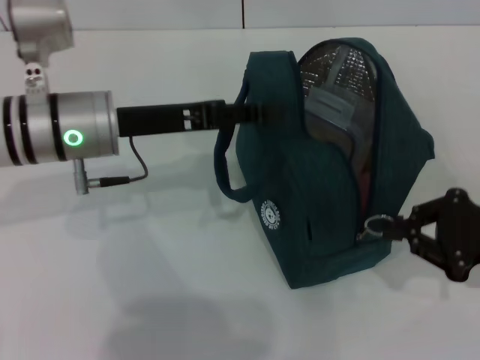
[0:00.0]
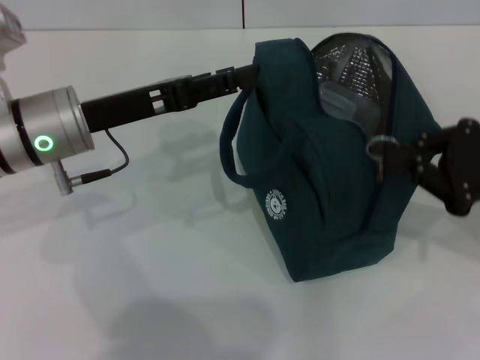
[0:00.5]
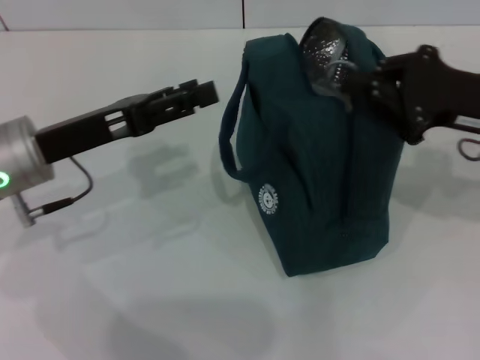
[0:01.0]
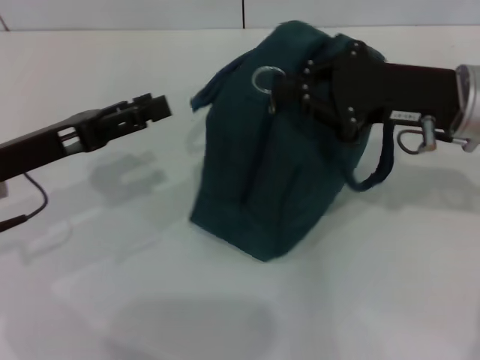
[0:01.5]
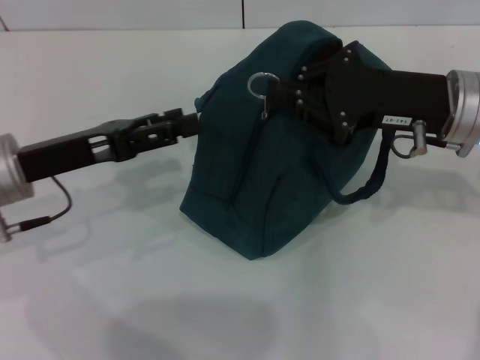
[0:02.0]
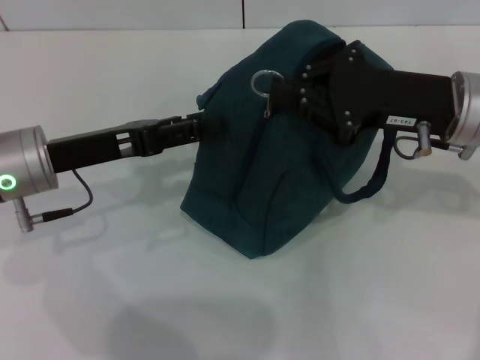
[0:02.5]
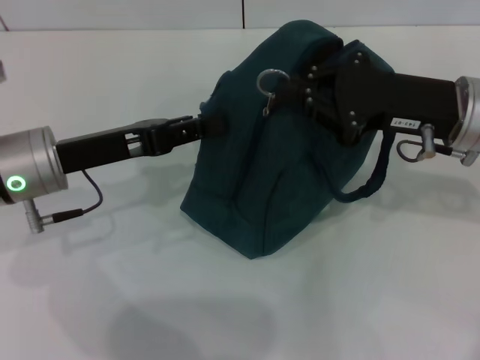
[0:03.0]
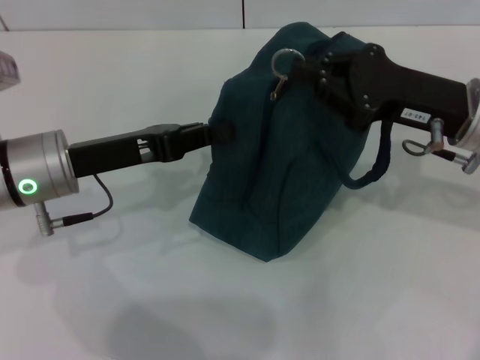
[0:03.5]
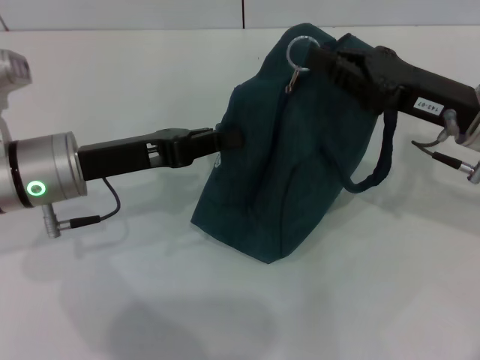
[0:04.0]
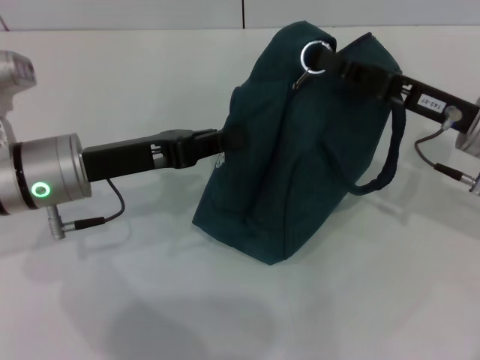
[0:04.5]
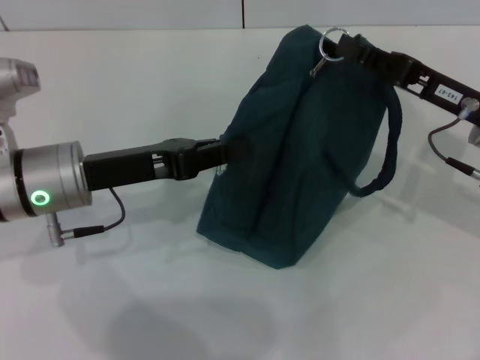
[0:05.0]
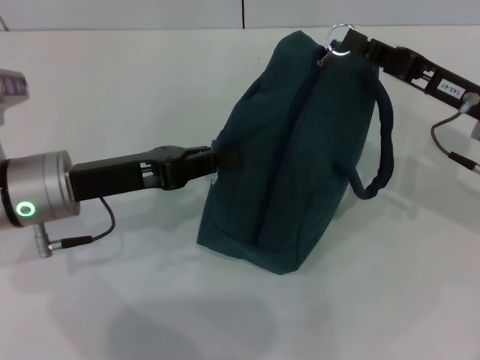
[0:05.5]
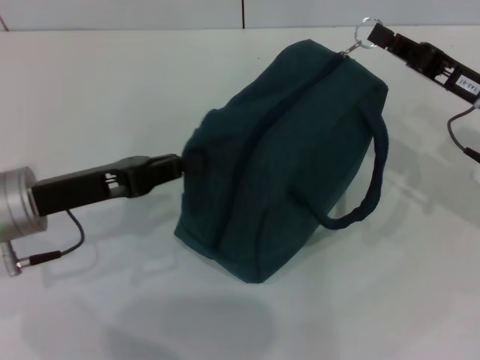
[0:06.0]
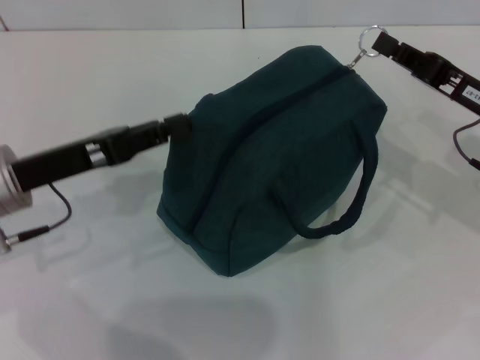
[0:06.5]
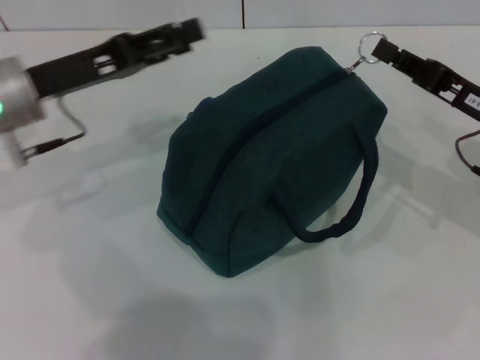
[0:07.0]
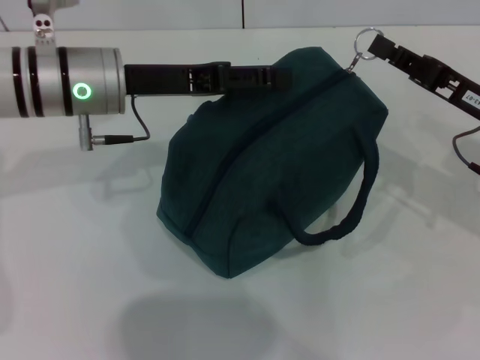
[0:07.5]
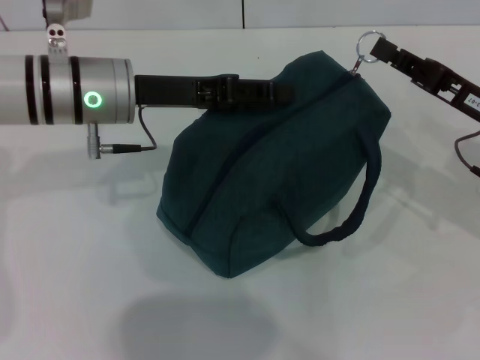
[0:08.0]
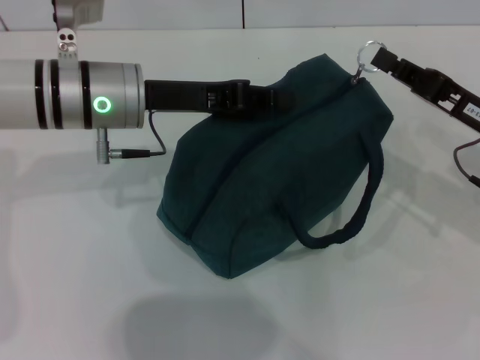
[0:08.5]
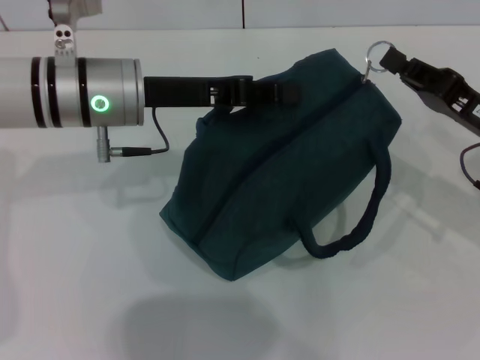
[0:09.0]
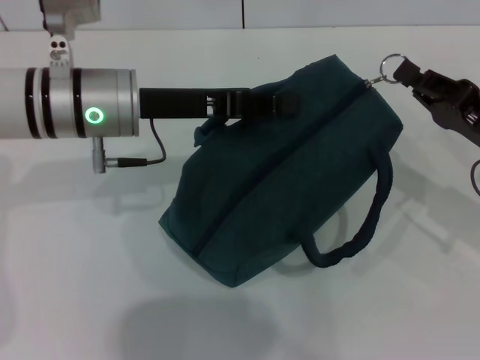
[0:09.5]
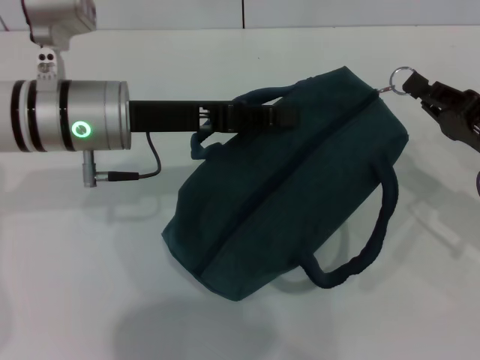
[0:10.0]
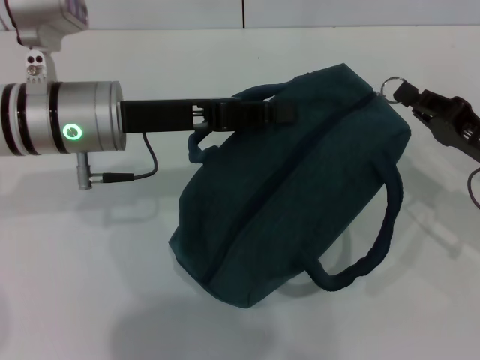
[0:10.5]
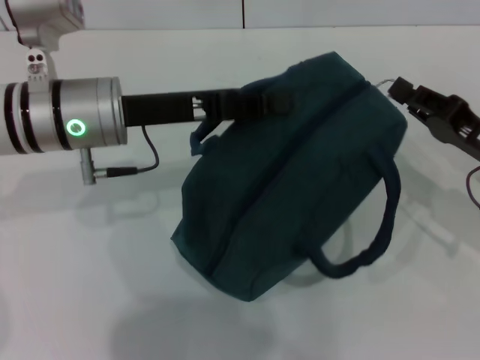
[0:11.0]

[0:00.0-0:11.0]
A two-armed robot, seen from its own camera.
0:00.0 to 0:02.0: The left gripper moves to the left, roughly 5 cm, and opens. The right gripper goes approximately 15 cm to the left, forward and upward.
0:02.0 to 0:03.5: The left gripper closes.
0:05.5 to 0:07.5: The left gripper goes approximately 10 cm forward, and opens up.
0:07.5 to 0:09.0: The left gripper closes.

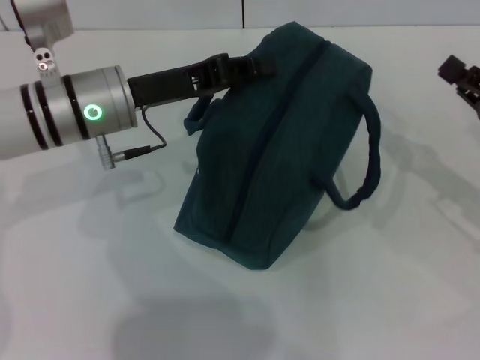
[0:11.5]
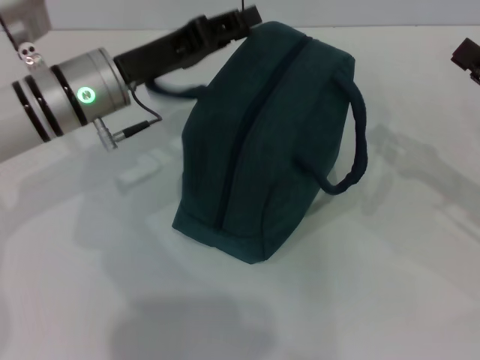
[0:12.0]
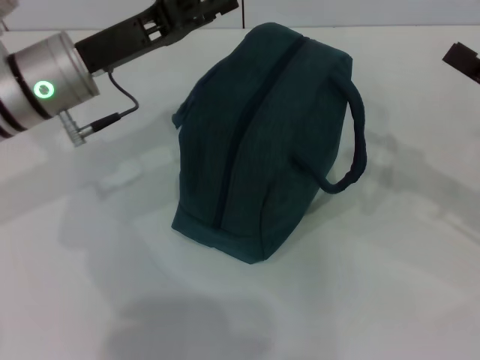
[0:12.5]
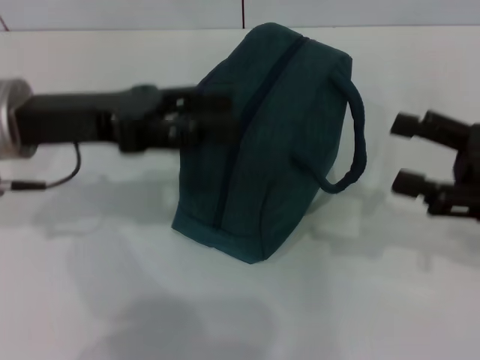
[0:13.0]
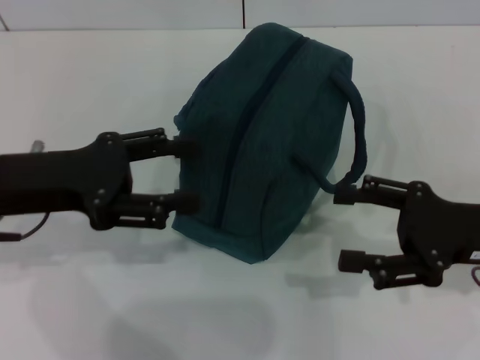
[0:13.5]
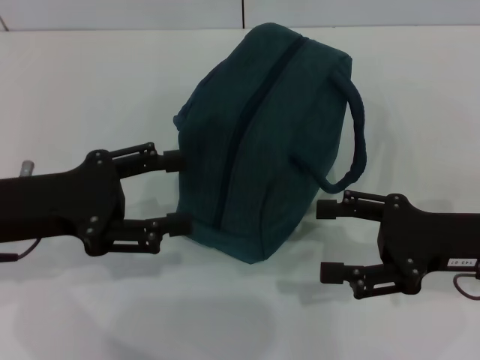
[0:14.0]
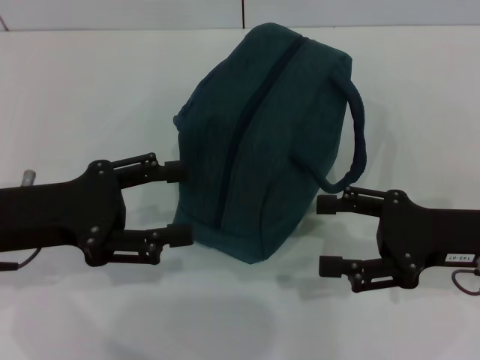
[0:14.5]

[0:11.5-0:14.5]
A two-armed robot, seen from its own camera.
Step, 0:11.5 to 0:12.0: Hold the lunch bag with your left hand.
0:11.5 to 0:13.0: The left gripper is displaced to the left and upward by about 10 cm, and opens its fingers. The right gripper moves roughly 5 cm, and opens.
0:13.0 to 0:14.5: The left gripper moves backward, some 5 cm, while the right gripper travels to the left by some 5 cm.
